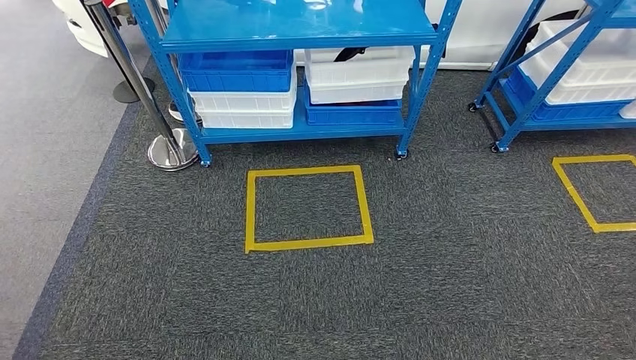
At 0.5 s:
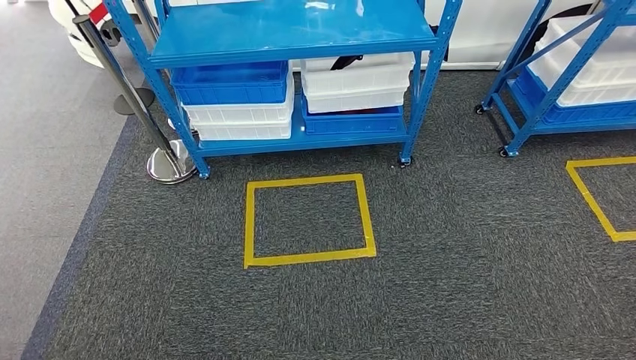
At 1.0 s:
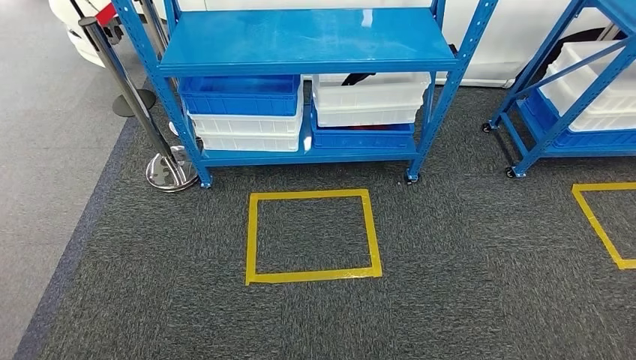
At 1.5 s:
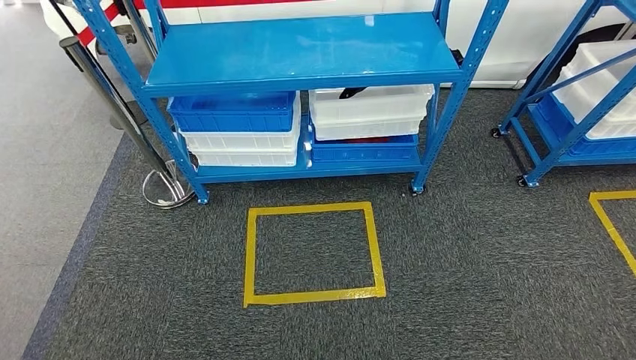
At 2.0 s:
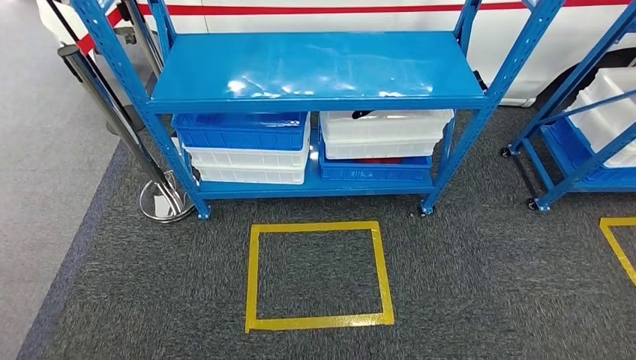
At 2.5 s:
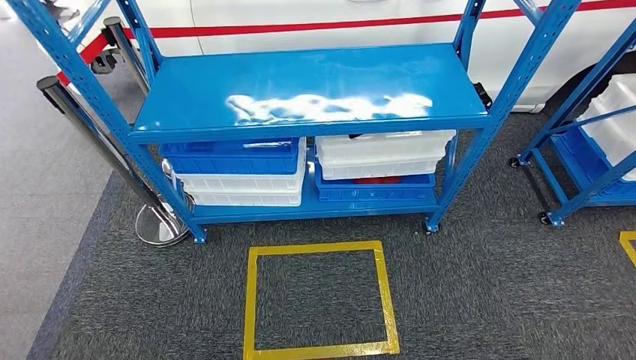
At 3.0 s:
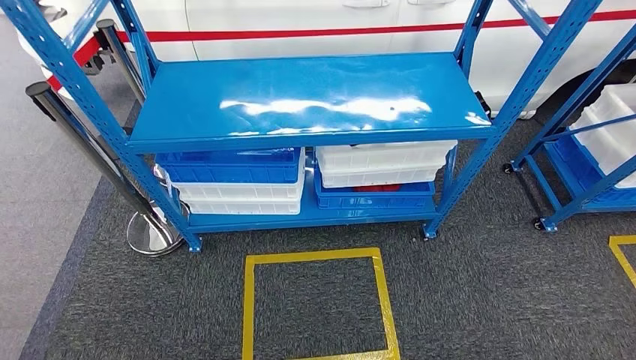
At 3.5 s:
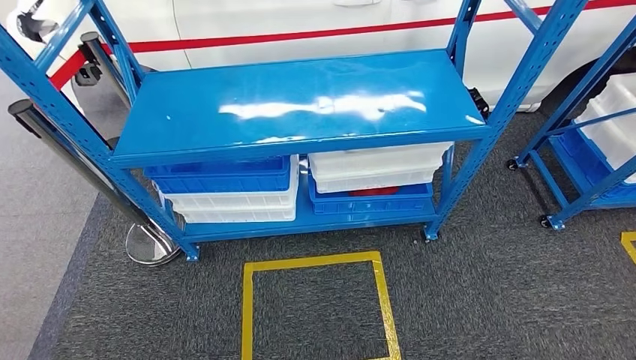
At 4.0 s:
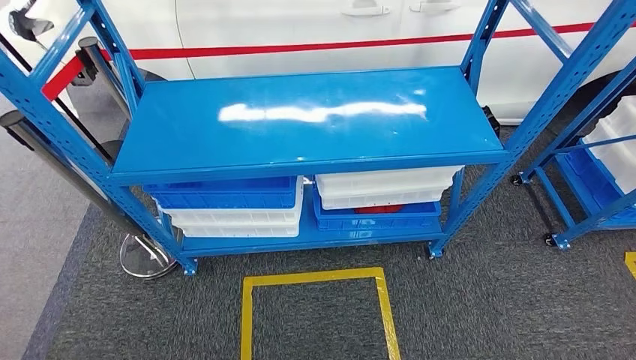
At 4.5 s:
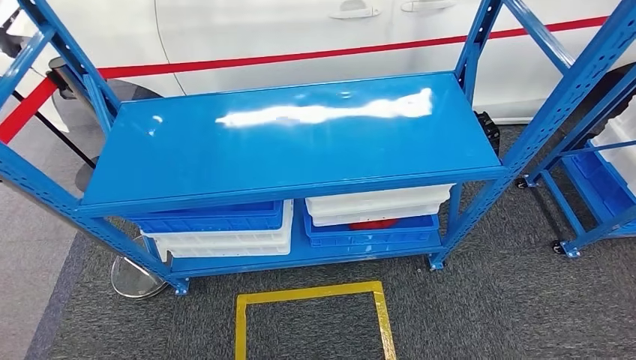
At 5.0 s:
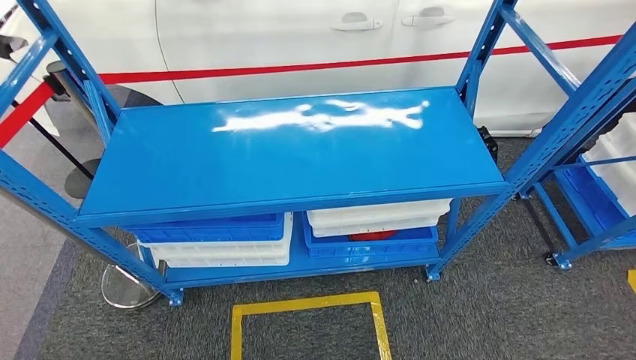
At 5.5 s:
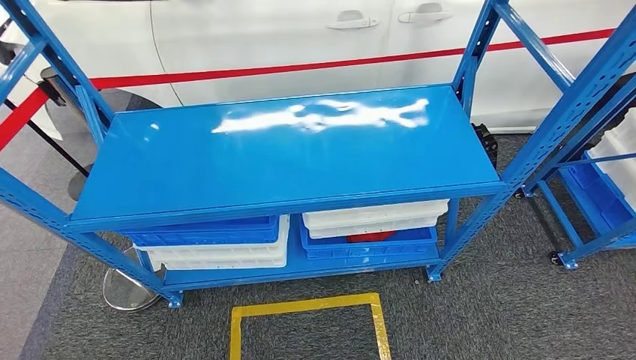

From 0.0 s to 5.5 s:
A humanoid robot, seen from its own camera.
Step, from 0.0 s to 5.5 s: Move to the initial position of the shelf.
